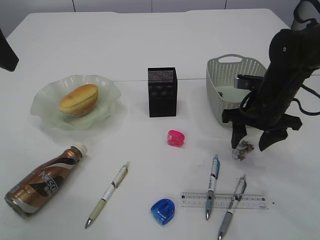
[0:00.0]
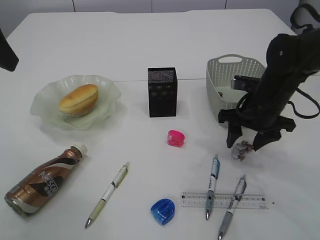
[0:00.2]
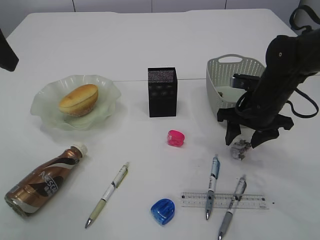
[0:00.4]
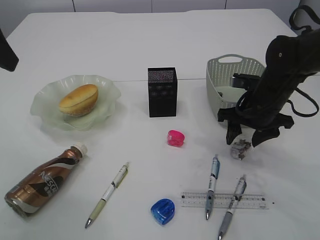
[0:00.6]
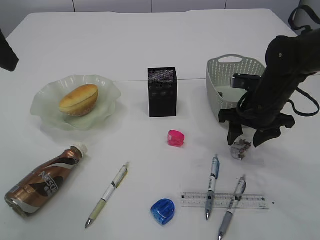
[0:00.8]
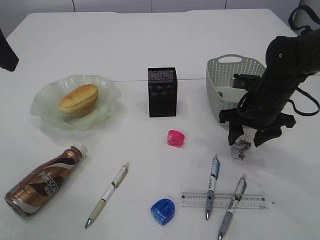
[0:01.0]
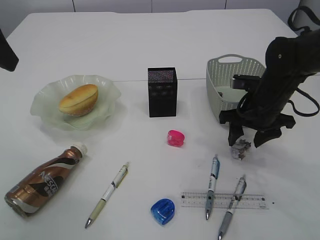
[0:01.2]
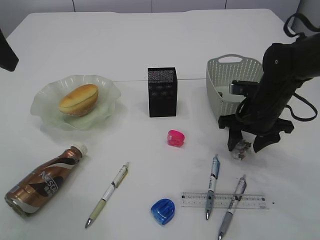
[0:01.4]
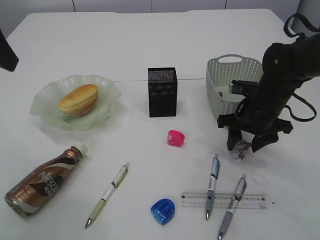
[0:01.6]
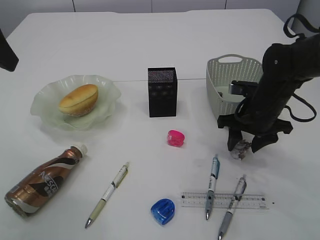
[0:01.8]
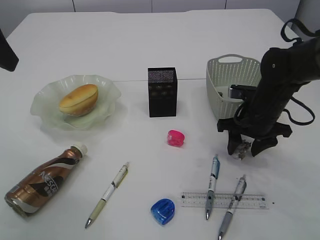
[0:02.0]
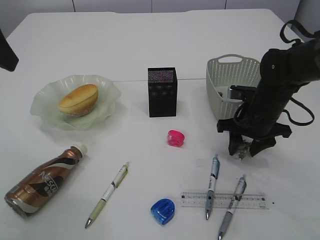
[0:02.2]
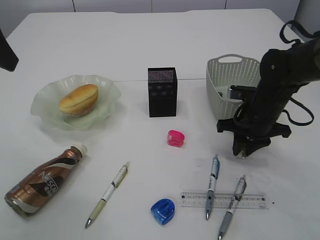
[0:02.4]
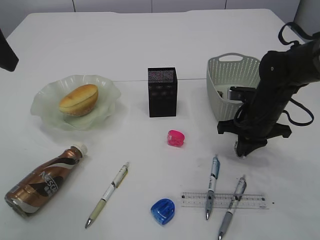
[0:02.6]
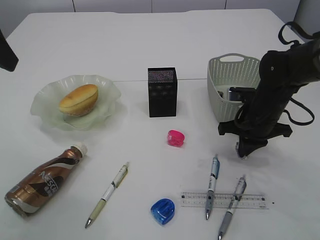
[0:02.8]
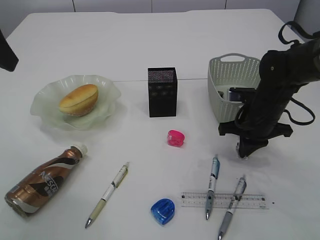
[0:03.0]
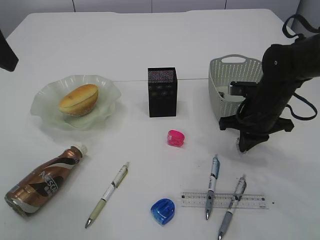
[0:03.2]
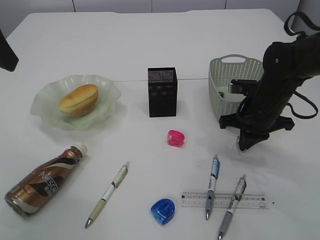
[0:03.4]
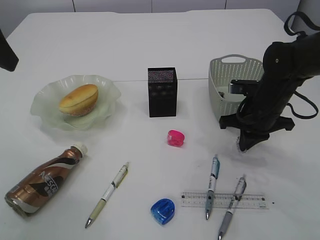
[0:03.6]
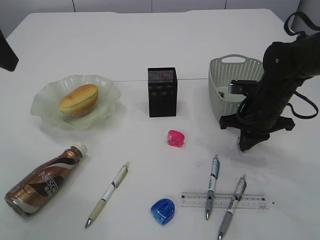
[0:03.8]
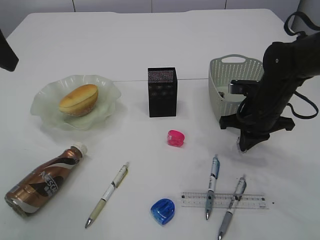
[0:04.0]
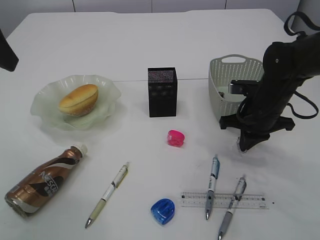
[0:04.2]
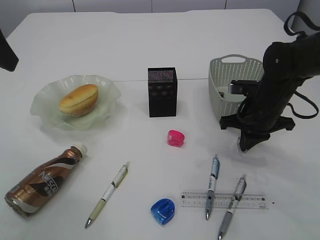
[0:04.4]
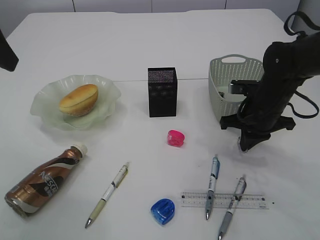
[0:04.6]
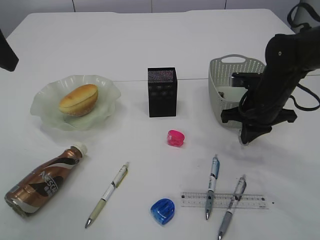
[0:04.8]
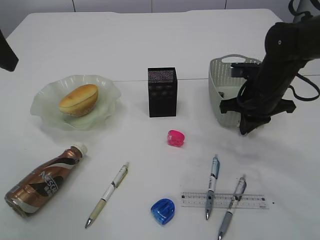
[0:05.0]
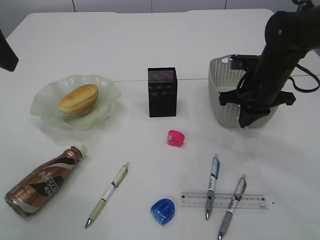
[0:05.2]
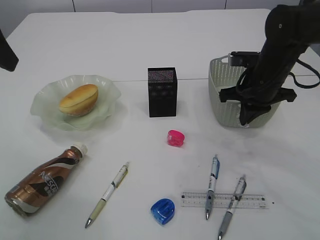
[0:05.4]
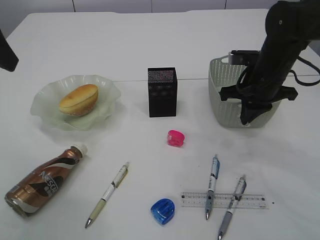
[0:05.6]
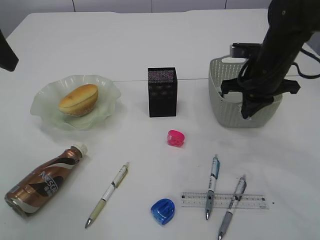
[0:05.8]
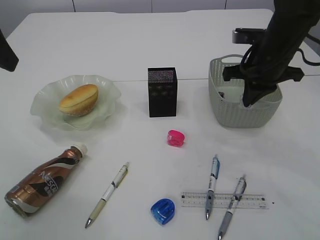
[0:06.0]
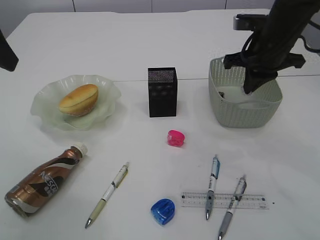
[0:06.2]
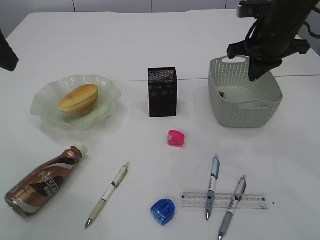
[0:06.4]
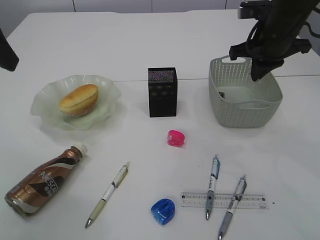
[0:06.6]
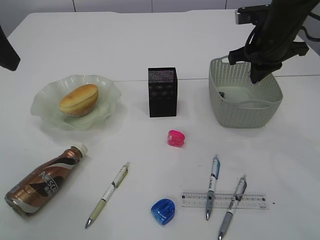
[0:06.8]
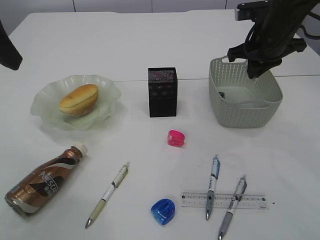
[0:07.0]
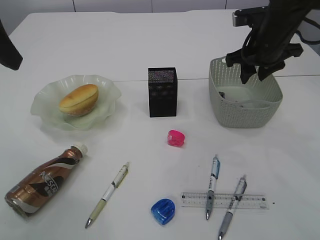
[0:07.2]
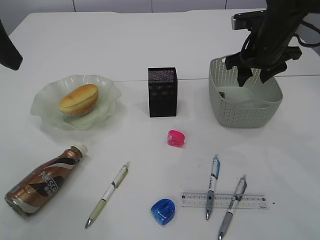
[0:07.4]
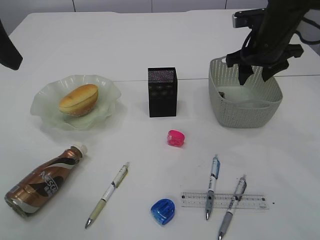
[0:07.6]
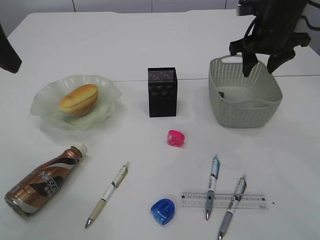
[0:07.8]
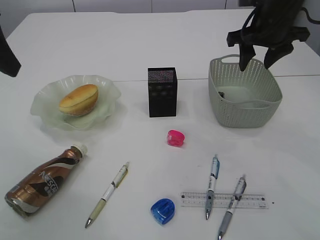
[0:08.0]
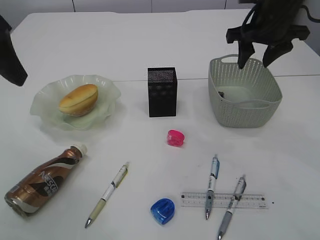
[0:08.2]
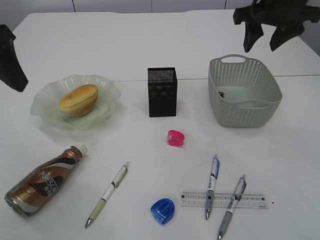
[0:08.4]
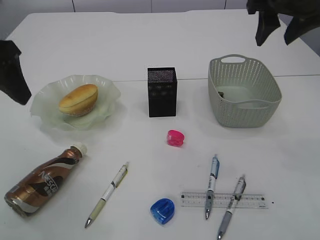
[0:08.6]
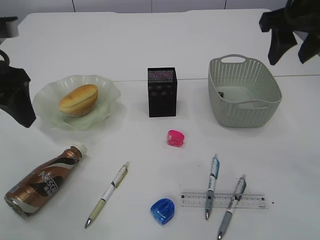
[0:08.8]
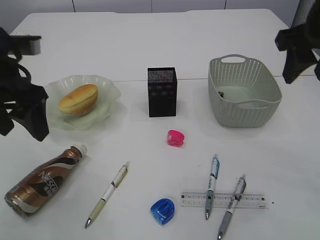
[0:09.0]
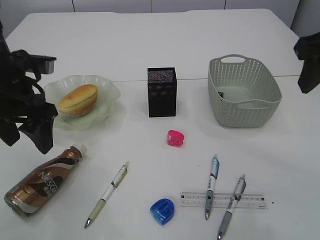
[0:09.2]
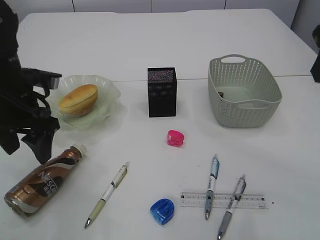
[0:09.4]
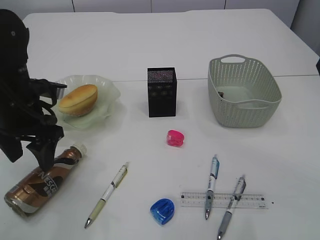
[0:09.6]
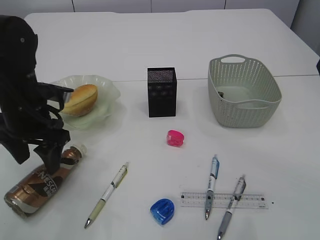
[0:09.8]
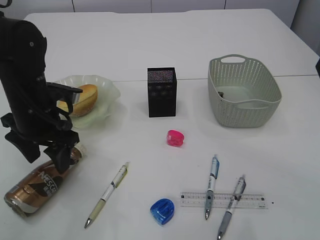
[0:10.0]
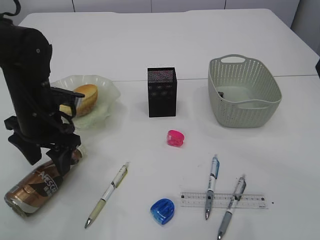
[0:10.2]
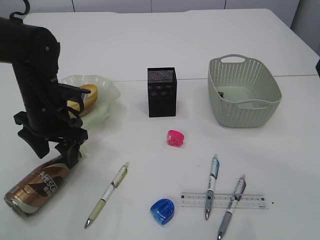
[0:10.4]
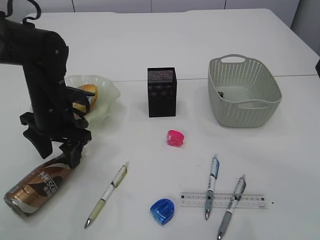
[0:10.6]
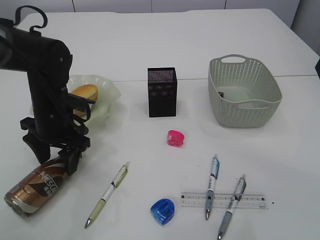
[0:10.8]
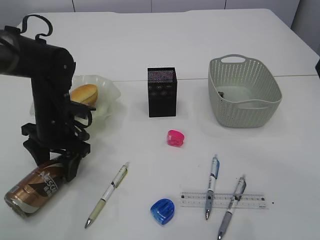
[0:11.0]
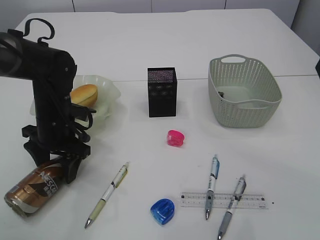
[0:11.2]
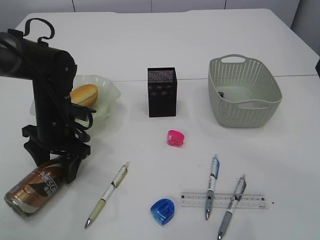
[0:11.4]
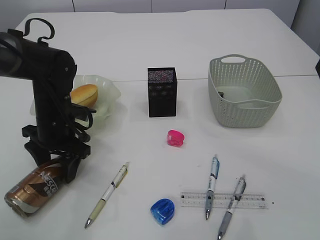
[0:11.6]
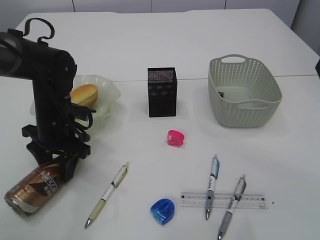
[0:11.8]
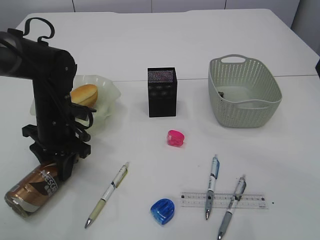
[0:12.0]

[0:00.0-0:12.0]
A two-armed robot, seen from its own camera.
Step, 0:00.0 to 0:05.8: Pick up the waste paper.
Step, 0:06.0 to 0:08.2: Place the waste paper in the basket.
0:00.0 to 0:01.6: The grippers move only a little.
0:01.6 to 0:03.0: The right gripper closes its fingers.
0:03.0 to 0:04.4: There are only small adjustments of the grippers.
0:04.4 to 0:06.0: The right gripper shifts some 10 cm upward.
0:06.0 to 0:07.6: The right gripper opens up.
0:07.6 to 0:09.0: The right gripper moves backward and upward, roughly 15 cm. Meanwhile the left gripper travels downward by approximately 10 cm.
0:09.0 to 0:10.4: The left gripper is displaced downward and forward by about 15 cm; the right gripper heads backward, covering some 5 cm.
0:10.4 to 0:12.0: The left gripper closes its fingers.

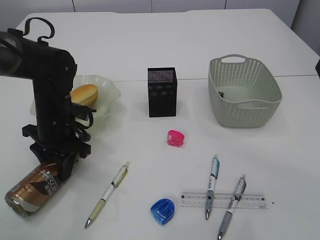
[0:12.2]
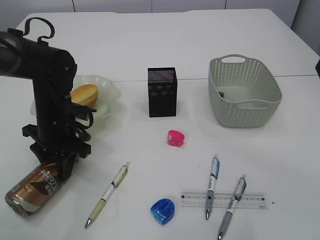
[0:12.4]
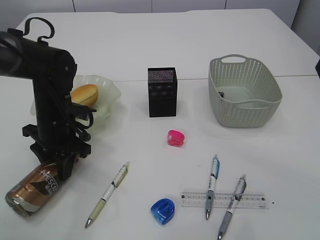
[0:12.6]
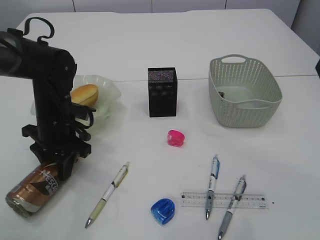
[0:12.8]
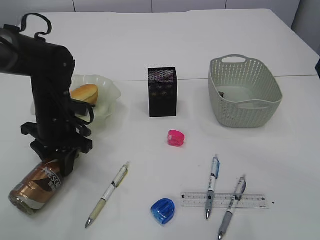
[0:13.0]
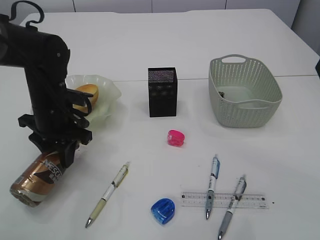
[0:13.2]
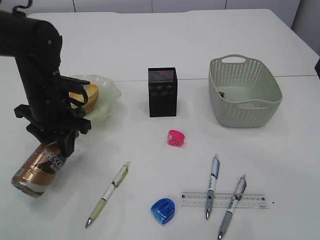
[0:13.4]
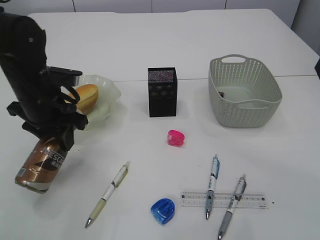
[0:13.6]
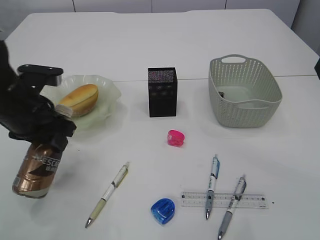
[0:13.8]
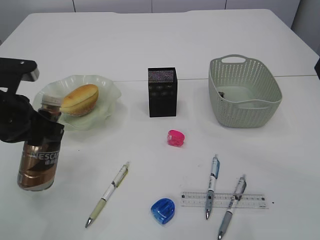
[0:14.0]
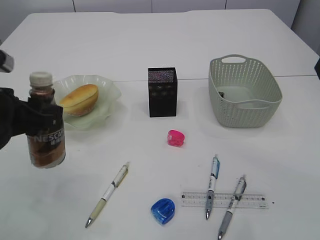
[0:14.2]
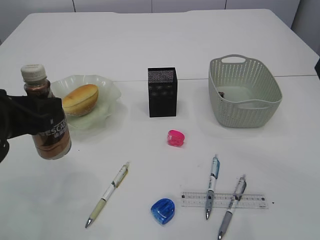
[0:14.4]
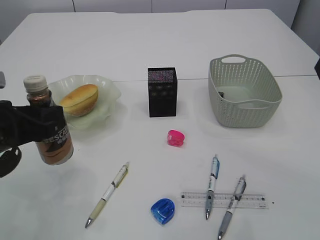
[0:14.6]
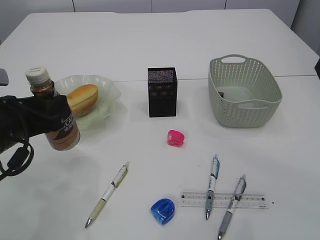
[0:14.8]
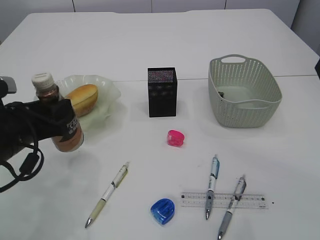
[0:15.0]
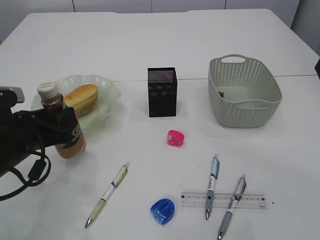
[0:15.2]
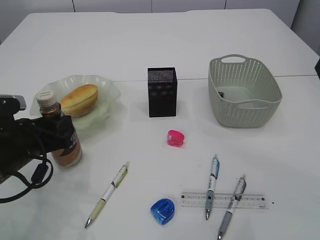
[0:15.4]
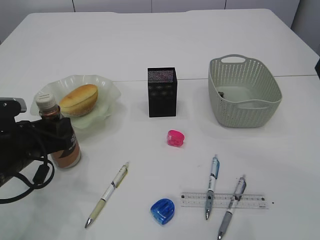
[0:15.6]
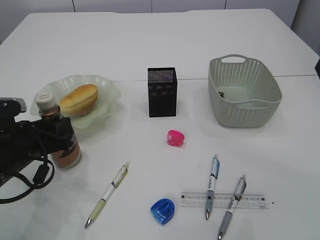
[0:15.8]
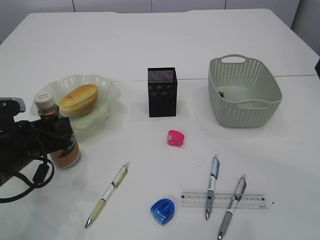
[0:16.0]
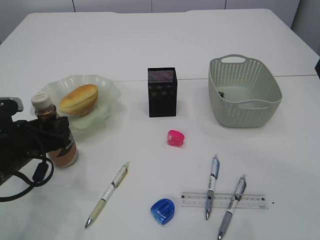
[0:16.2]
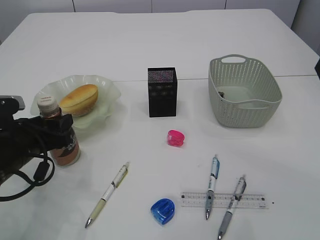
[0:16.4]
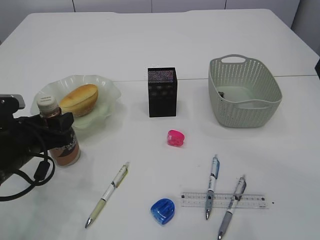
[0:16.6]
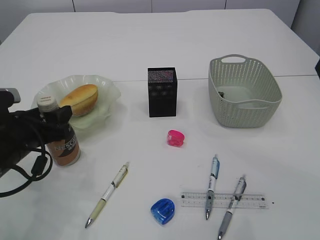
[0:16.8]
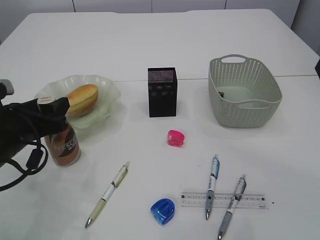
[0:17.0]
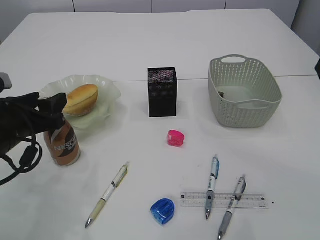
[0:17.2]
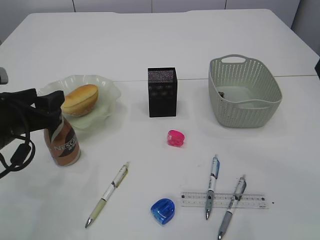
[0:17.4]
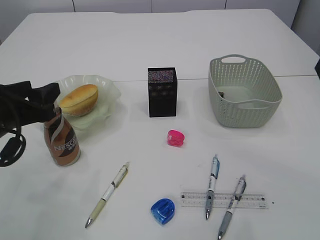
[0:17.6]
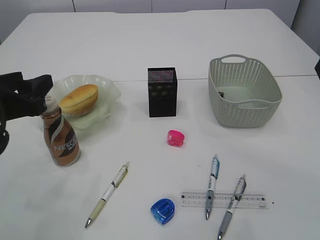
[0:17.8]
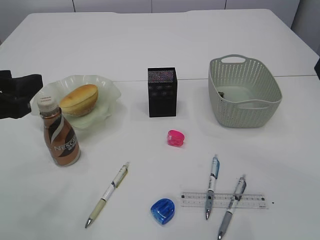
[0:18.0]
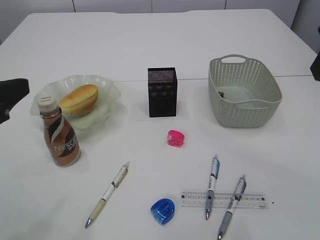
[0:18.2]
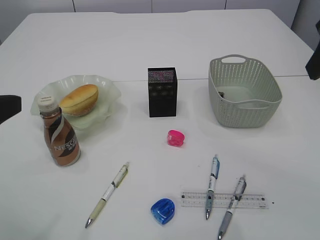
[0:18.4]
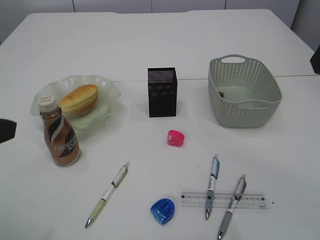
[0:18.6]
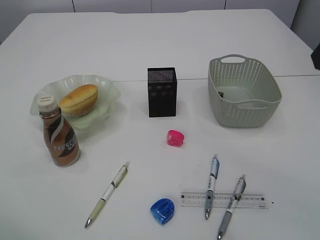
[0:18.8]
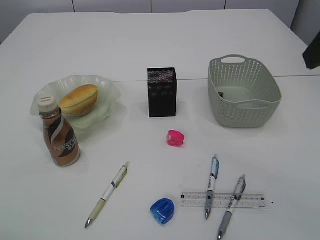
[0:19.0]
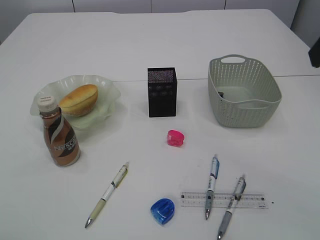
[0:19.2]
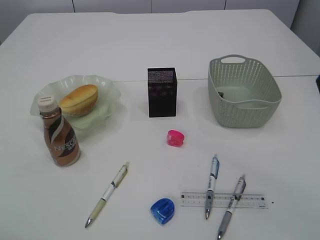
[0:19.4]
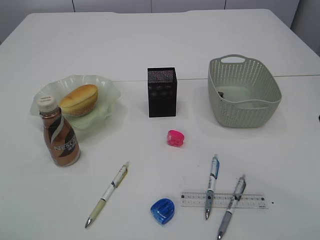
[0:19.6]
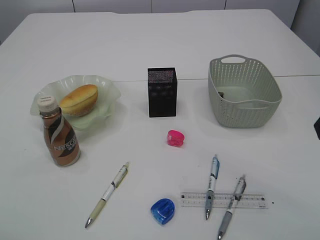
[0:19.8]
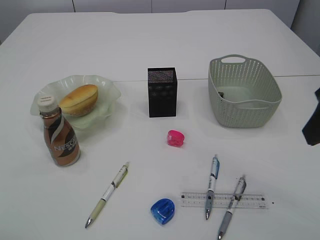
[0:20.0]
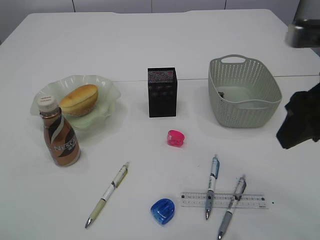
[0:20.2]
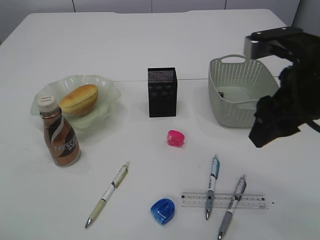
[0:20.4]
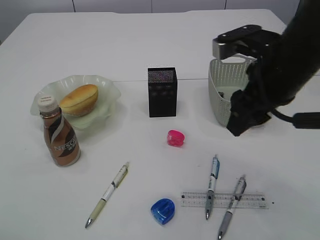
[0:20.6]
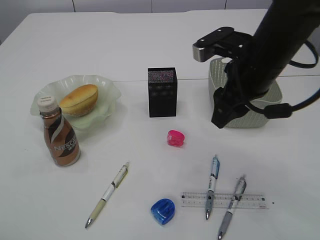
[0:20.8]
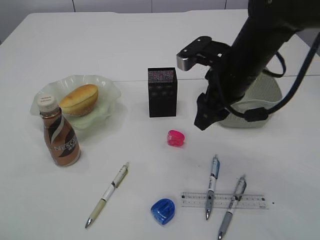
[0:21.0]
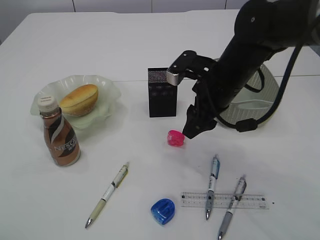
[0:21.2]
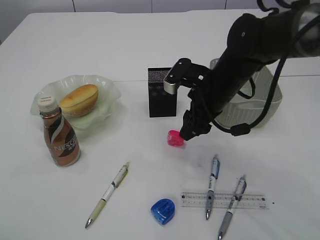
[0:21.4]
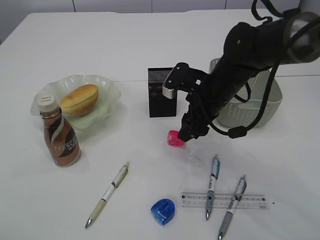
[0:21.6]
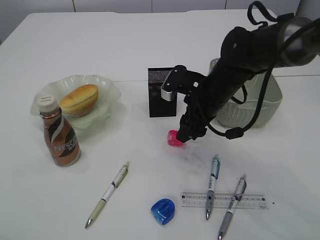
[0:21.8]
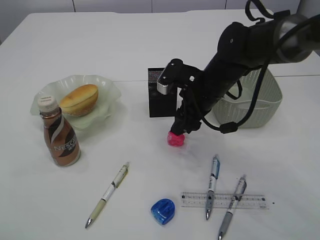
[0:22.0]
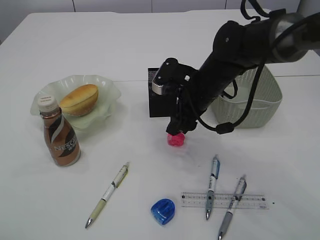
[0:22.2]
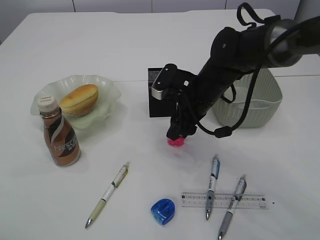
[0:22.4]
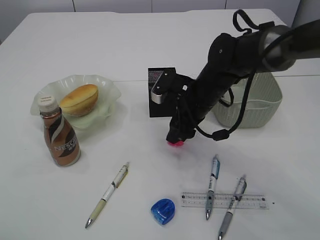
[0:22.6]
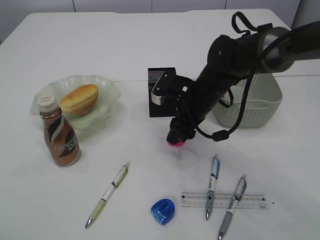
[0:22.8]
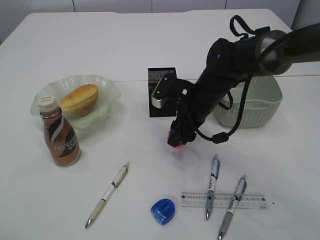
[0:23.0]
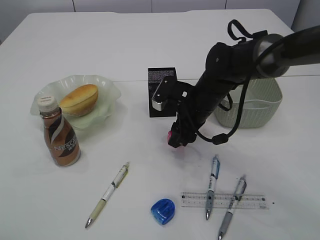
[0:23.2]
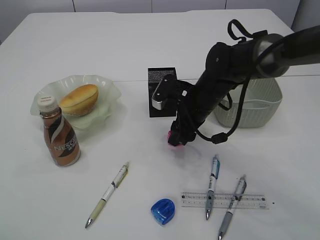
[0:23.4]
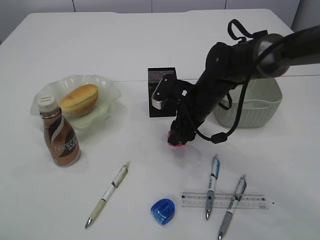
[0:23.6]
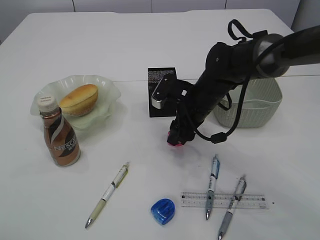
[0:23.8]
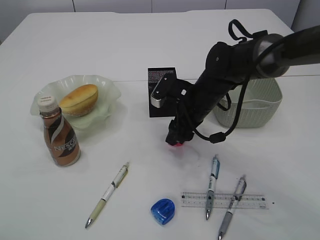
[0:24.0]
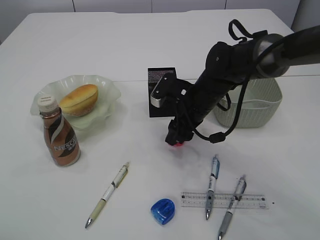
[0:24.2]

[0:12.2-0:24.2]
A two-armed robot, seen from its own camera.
Step, 0:13.8 to 0:17.8: Place the bottle.
0:12.2 to 0:13.8: The left gripper heads upward and backward, covering about 10 cm.
0:13.8 to 0:15.2: The left gripper shifts roughly 5 cm downward.
0:15.2 to 0:16.6: The grippers stay close to where they were, moving slightly.
0:16.6 to 0:18.2: The left gripper is displaced upward and backward by about 15 cm.
0:18.2 to 0:19.8: The left gripper goes about 10 cm backward and upward.
0:19.8 to 0:21.2: The right gripper is displaced forward, downward and to the left by approximately 25 cm.
0:21.2 to 0:22.6: The right gripper heads downward, covering approximately 5 cm.
0:22.6 to 0:24.2: The grippers make only small movements.
